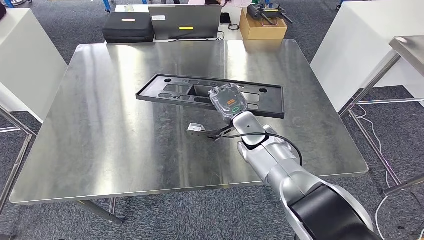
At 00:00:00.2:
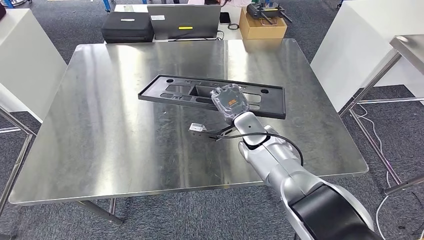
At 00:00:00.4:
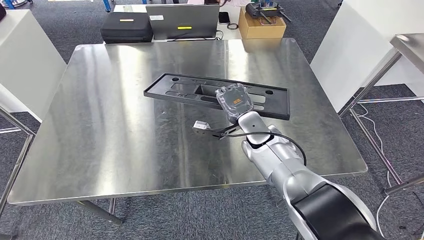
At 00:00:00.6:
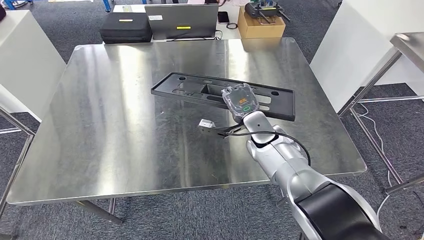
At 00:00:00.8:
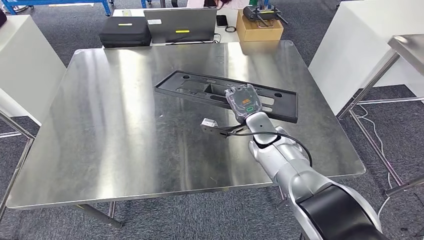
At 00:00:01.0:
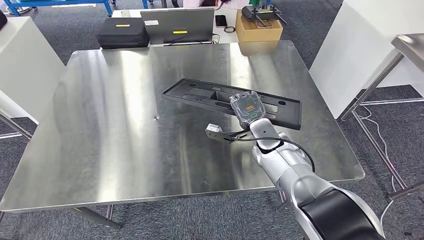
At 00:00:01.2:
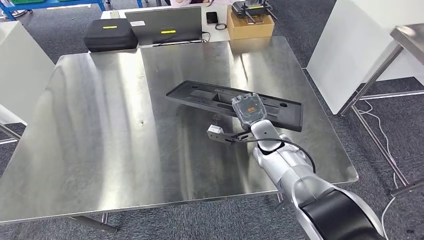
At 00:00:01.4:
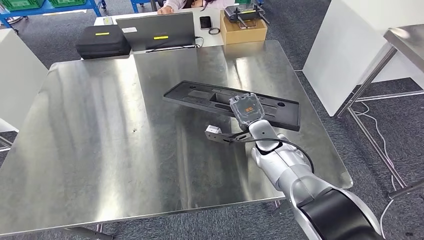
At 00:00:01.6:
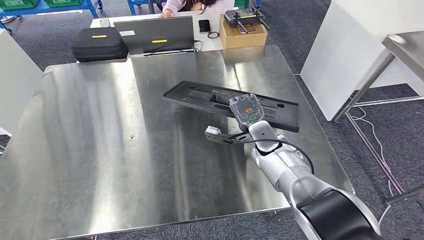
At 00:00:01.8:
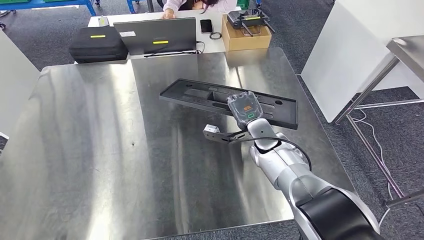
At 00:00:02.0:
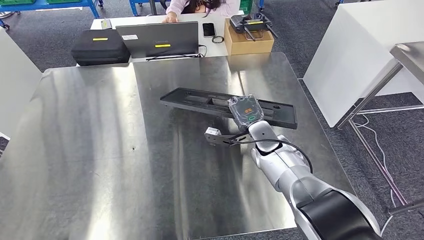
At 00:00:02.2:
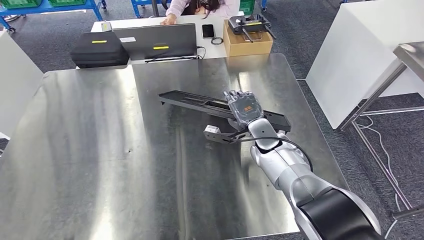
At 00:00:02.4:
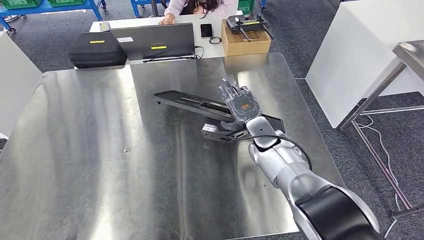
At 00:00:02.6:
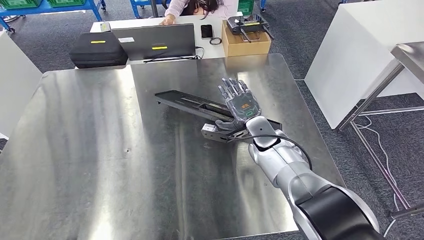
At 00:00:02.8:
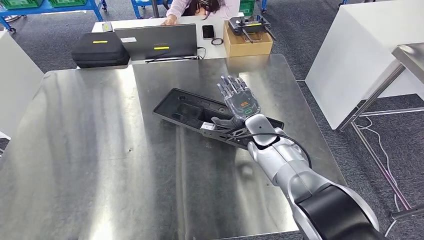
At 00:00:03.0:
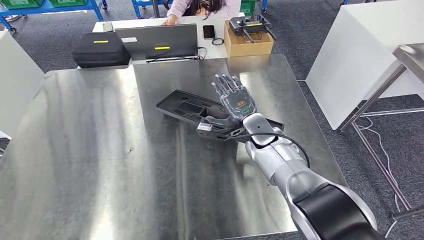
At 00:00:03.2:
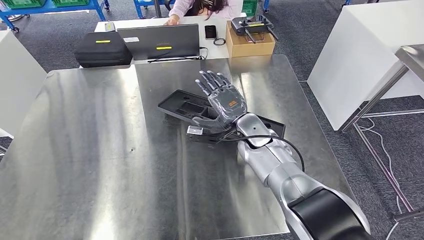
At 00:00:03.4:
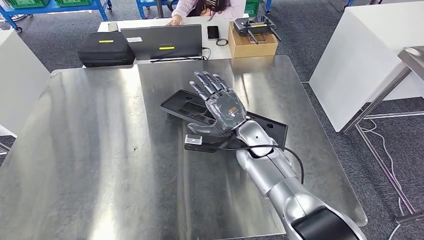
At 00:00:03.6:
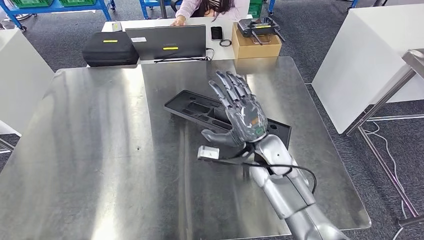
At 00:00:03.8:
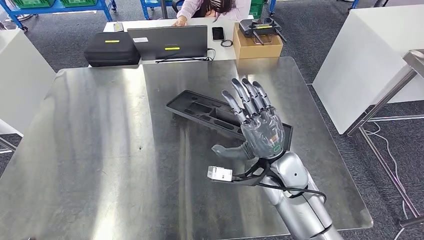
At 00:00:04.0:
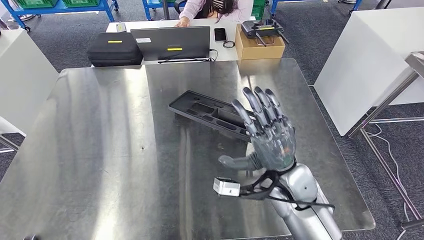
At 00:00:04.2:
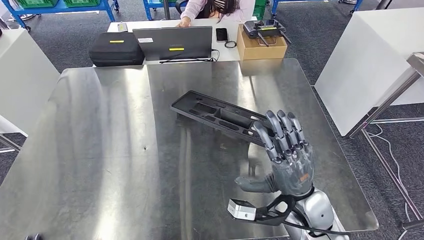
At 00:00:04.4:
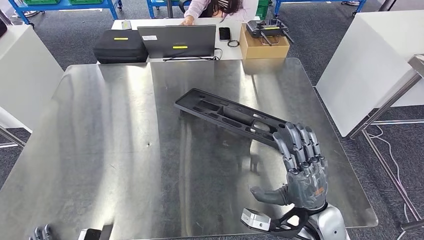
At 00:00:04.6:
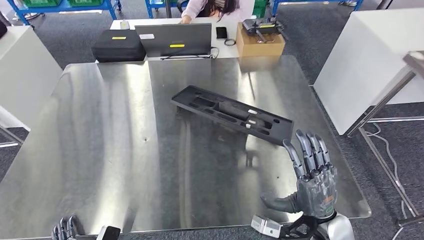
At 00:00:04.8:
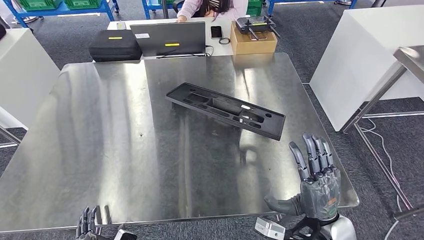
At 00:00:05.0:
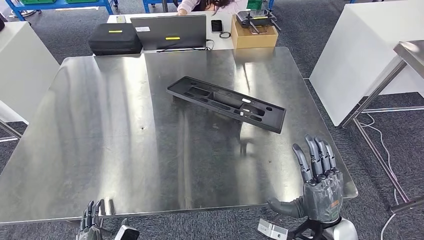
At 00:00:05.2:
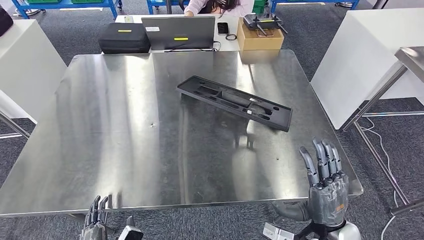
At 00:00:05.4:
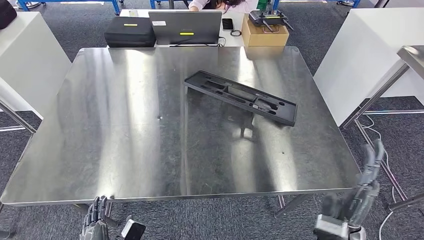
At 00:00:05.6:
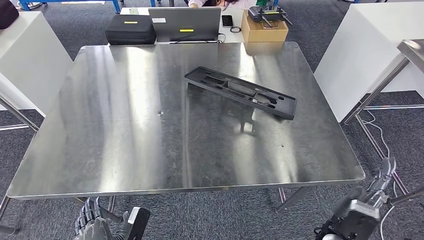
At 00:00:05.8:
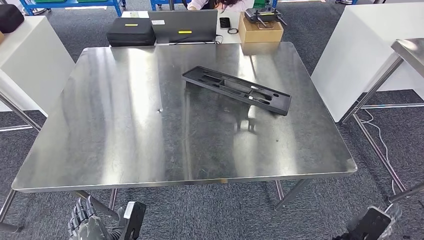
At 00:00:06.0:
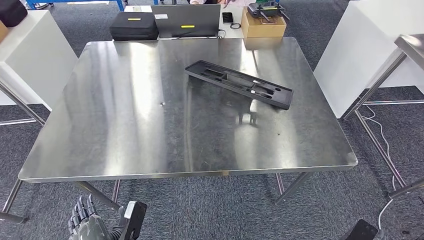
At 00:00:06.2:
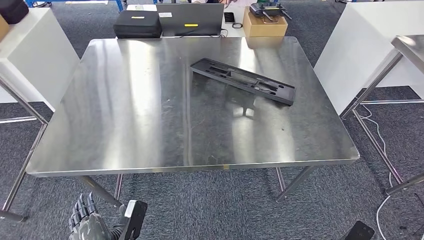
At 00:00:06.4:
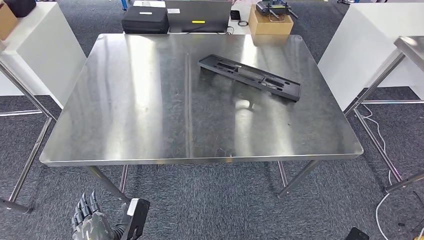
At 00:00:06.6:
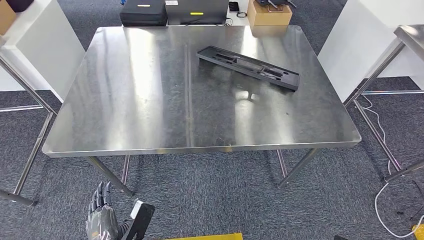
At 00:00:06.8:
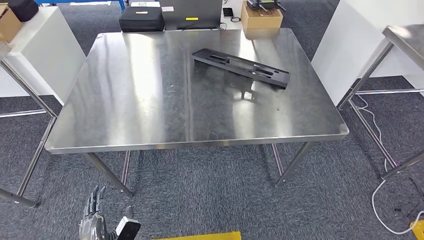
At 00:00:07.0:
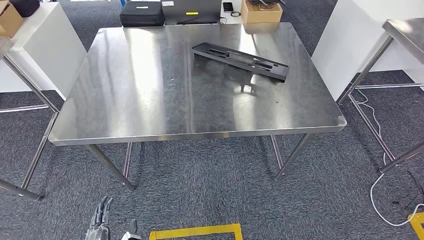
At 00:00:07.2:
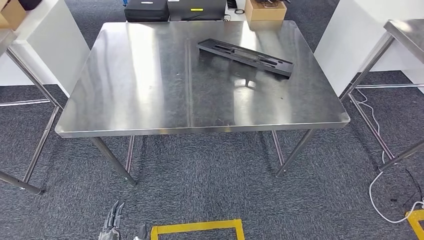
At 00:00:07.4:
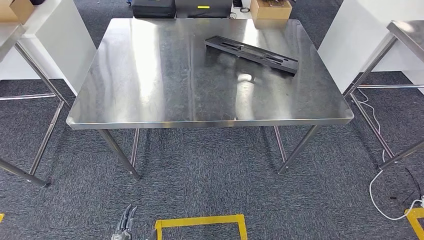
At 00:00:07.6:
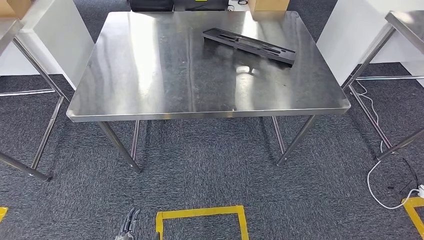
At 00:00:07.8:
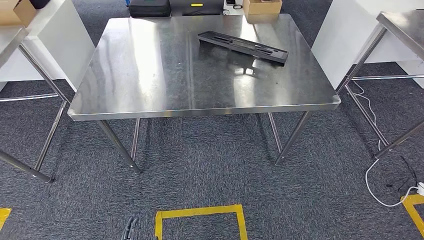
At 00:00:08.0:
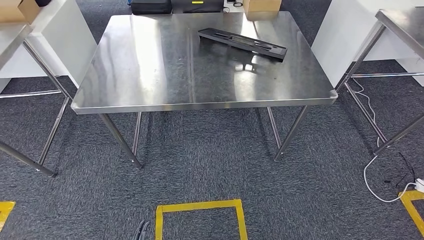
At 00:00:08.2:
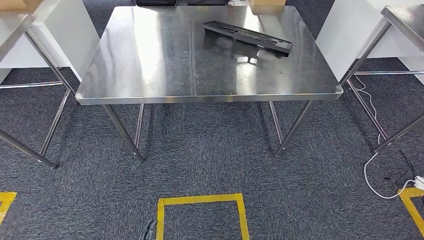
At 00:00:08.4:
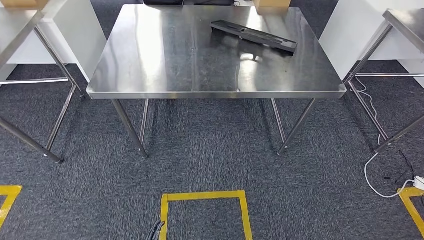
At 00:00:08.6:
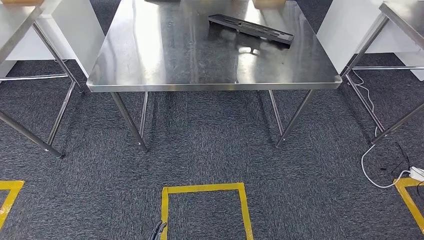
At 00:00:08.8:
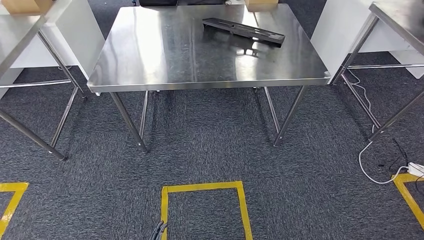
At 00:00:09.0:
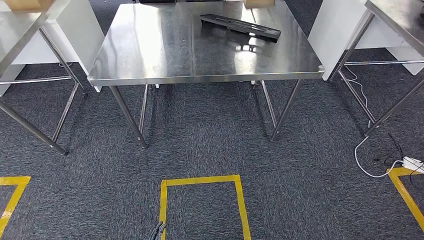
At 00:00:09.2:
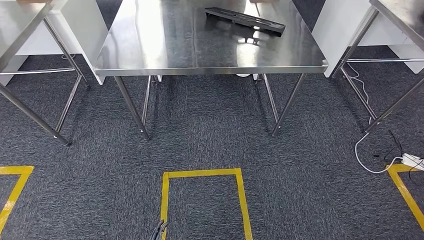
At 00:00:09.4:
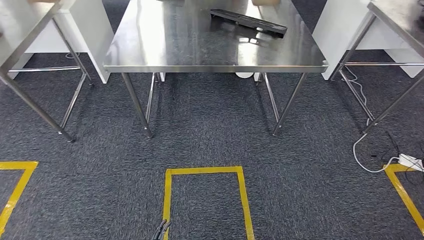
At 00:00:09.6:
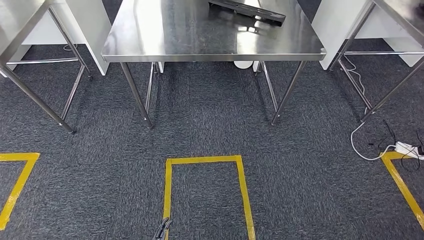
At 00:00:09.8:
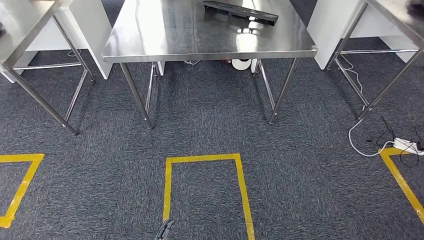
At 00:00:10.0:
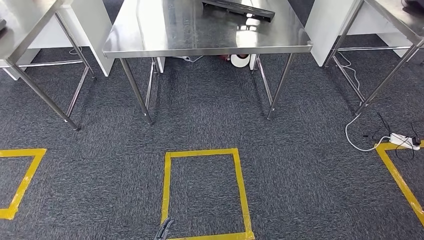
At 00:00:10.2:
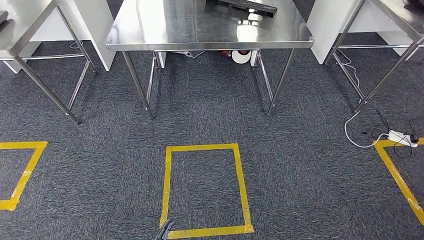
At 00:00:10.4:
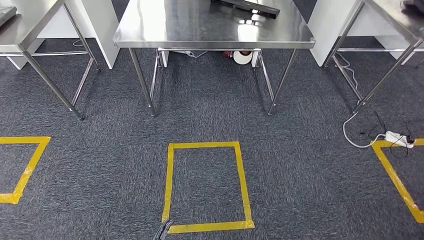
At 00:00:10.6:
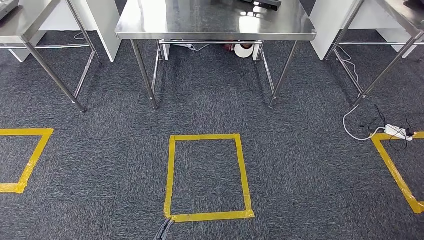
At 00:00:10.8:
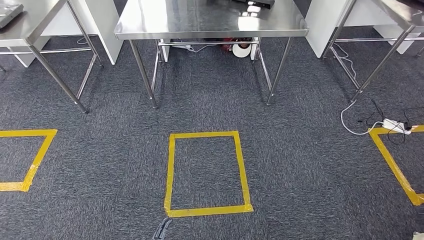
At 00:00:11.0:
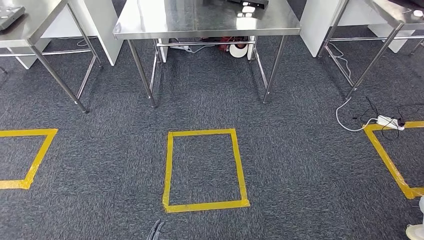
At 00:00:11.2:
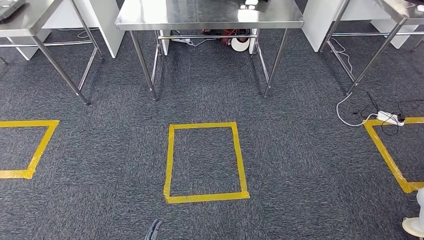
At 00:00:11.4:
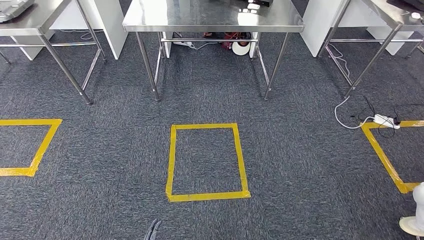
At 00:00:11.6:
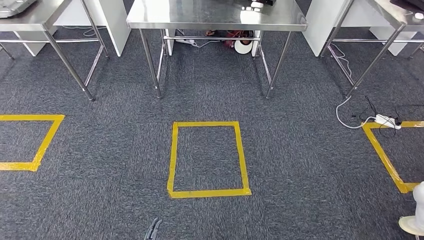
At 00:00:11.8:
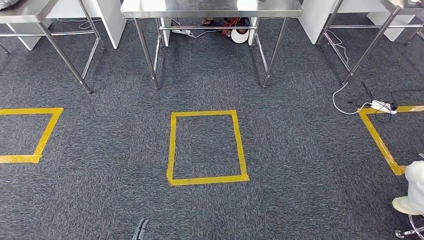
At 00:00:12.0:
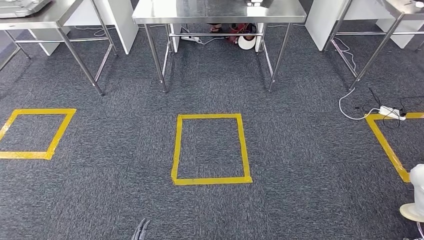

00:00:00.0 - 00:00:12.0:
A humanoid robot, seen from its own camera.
Step, 00:00:00.0 - 00:00:05.6: Insert the large material into the corresponding slot on the workbench.

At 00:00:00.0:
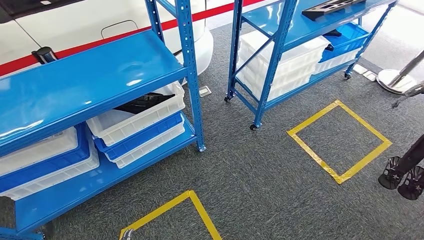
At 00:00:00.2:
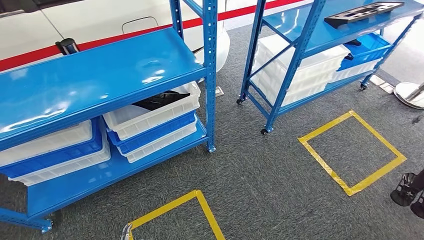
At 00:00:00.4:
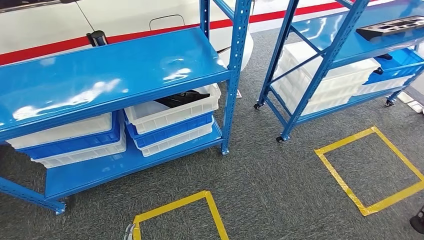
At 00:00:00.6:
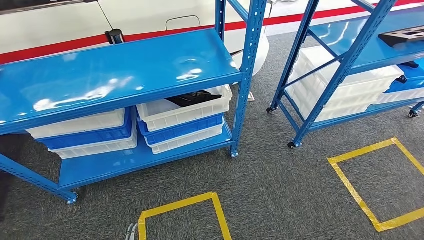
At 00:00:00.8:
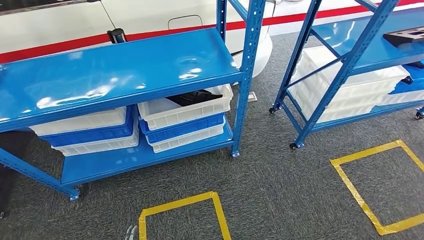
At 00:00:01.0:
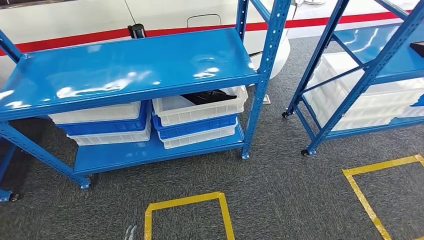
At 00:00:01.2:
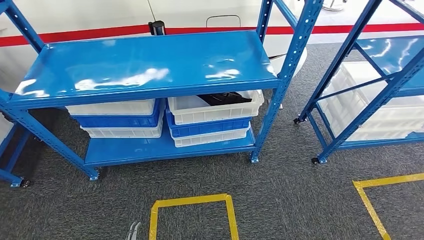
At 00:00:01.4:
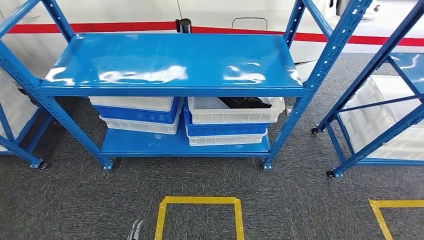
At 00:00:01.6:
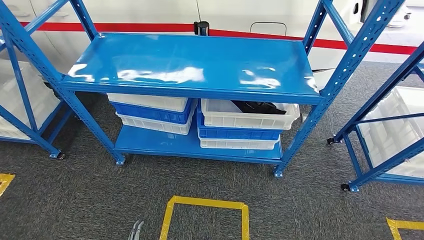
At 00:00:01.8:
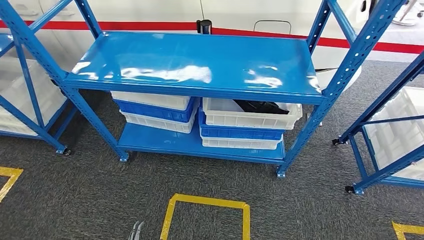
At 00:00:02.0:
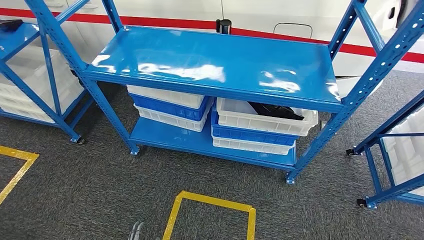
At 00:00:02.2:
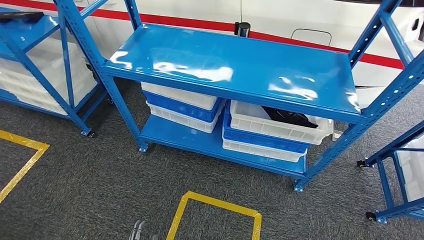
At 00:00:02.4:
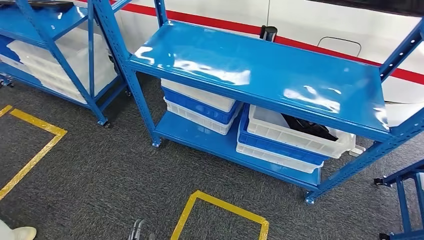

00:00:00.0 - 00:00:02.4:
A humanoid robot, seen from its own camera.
Step, 00:00:00.0 - 00:00:02.2: Return to the initial position at the shelf.
